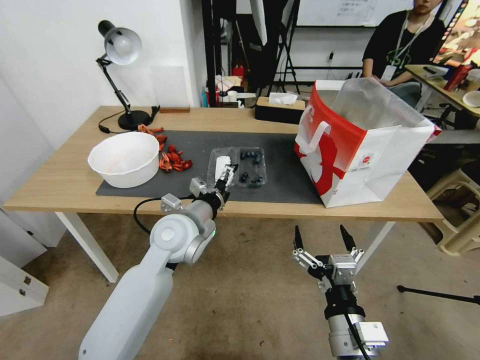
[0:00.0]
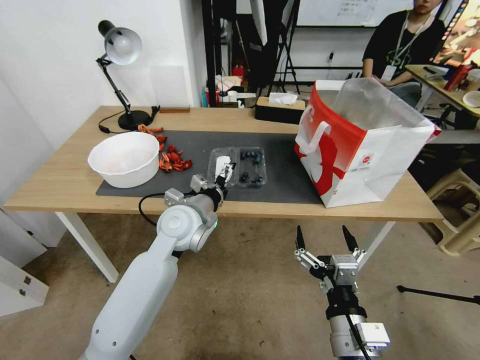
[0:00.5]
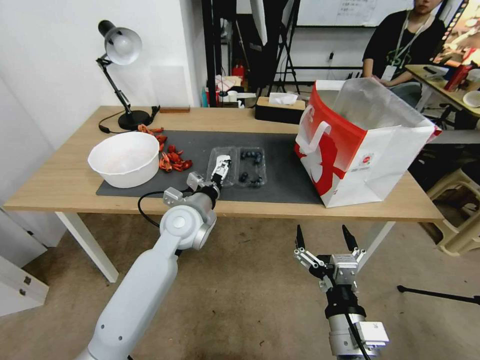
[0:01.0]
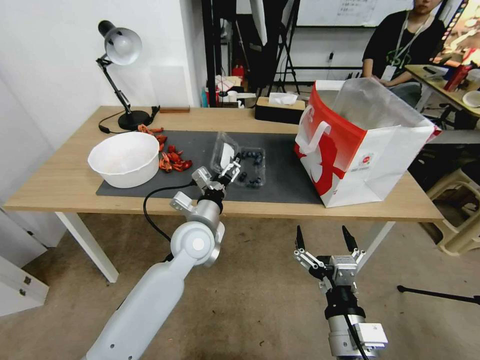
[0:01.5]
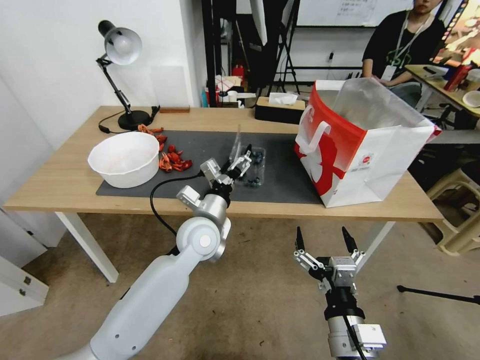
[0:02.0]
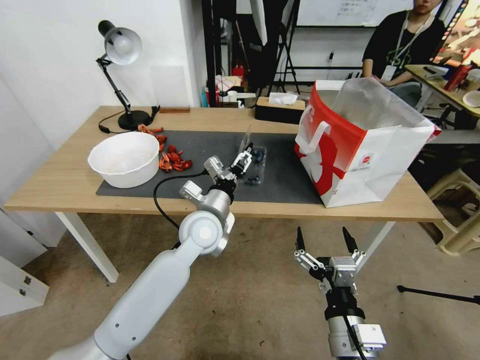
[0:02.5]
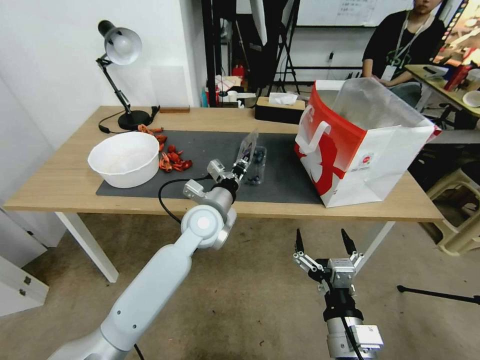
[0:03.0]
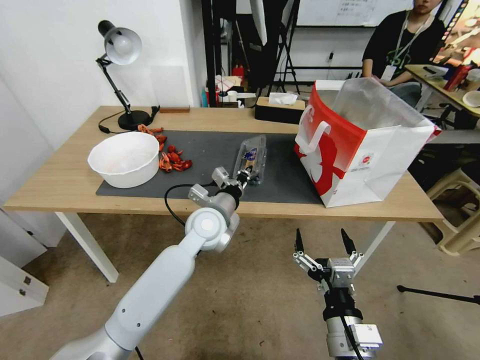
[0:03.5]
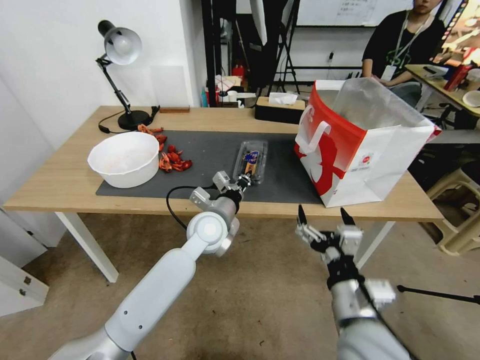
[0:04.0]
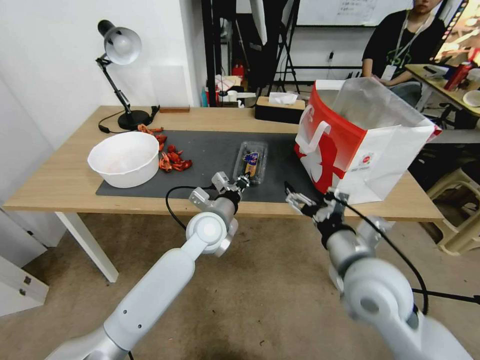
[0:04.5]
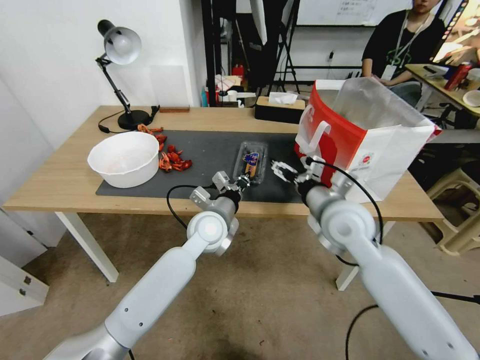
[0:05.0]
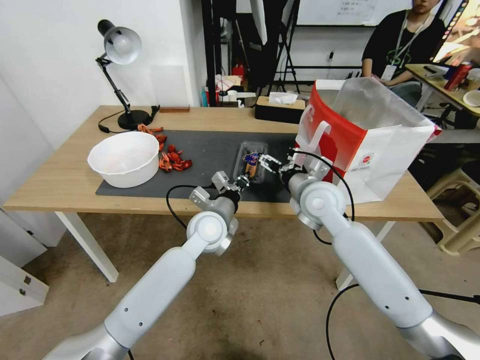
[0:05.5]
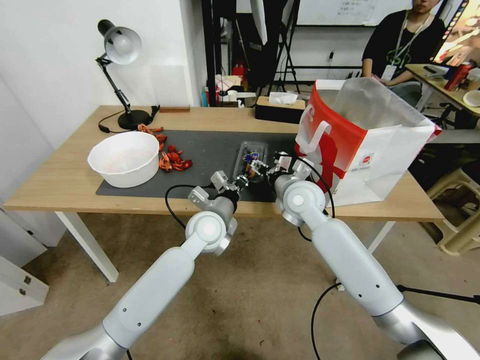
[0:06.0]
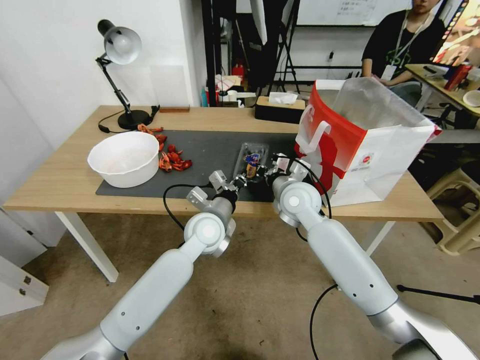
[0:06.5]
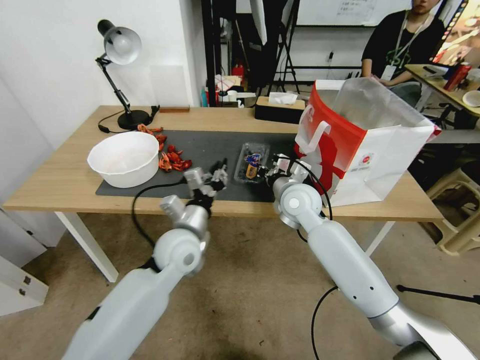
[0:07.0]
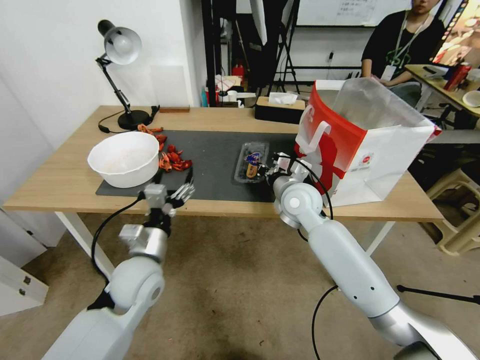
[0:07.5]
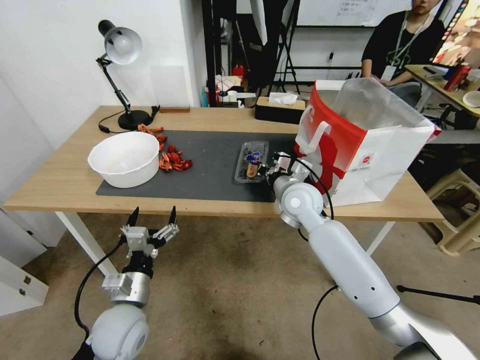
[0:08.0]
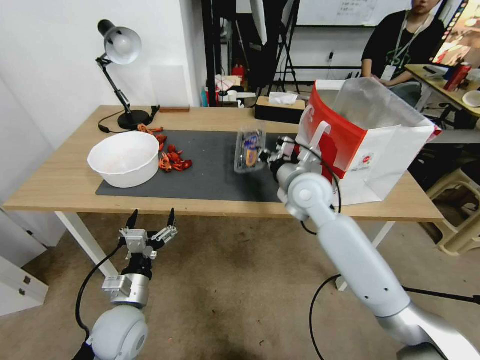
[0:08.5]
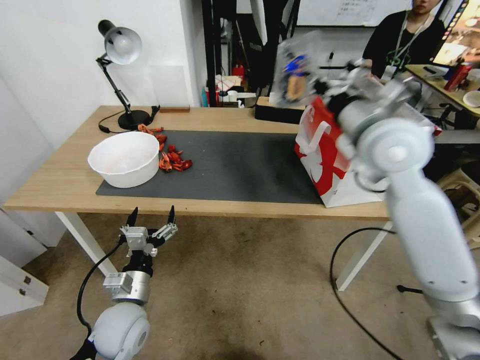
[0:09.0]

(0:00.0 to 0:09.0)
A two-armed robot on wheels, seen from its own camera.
Task of the whole recording: Close the takeout container lid, then place the container into the takeout bag.
0:00.0 - 0:02.0: The left gripper changes place by about 5 cm.
0:02.0 - 0:04.5: The right gripper heads forward and upward, covering about 15 cm. Meanwhile the left gripper closes its fingers.
0:04.5 - 0:07.0: The right gripper heads forward, covering about 20 cm, and closes up; the left gripper moves to the left and backward, roughly 10 cm.
0:07.0 - 0:09.0: The right gripper goes approximately 25 cm upward and to the right, while the left gripper goes about 15 cm backward, to the left and downward, and opens.

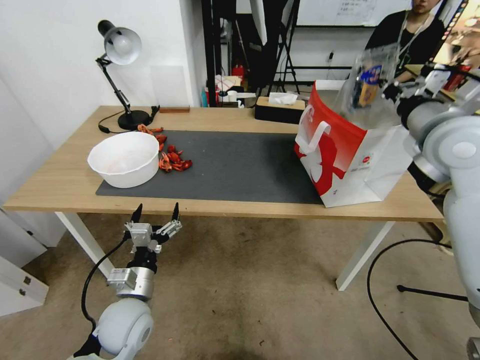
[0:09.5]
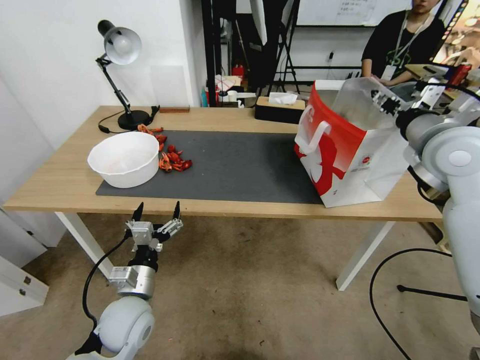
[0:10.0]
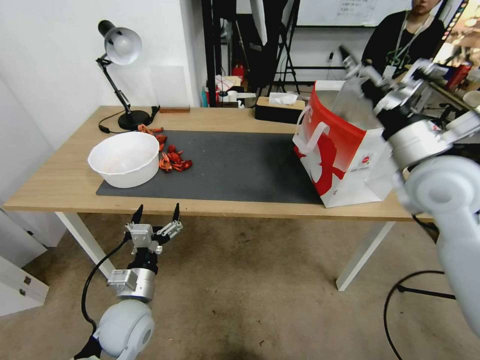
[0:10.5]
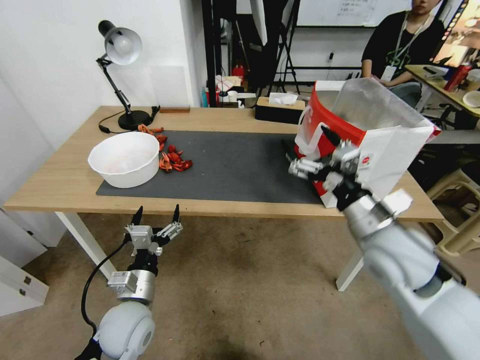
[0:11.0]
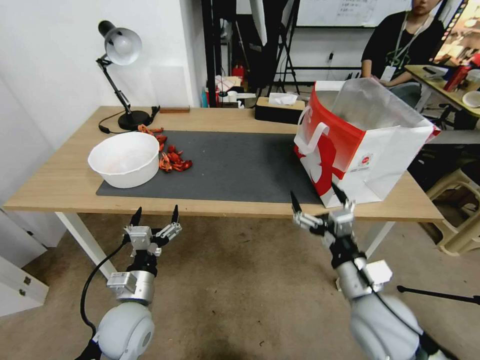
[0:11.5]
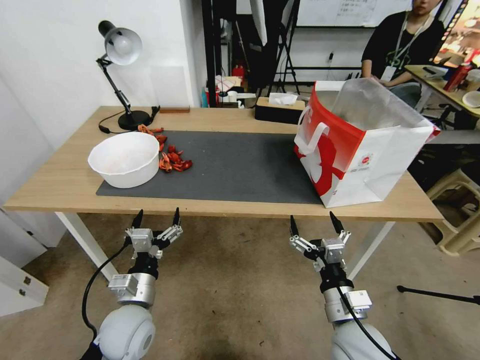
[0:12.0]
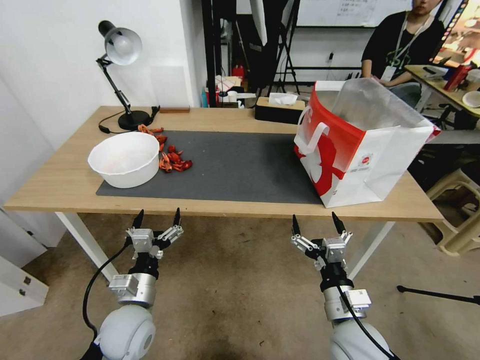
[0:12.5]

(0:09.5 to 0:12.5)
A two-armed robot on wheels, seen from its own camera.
Task of the whole recording: Close the takeout container lid, then place the container into the takeout bag.
0:09.5 - 0:11.0: The right gripper moves downward, backward and to the left, about 20 cm, and opens up.
0:11.0 - 0:12.5: The right gripper heads downward and backward, covering roughly 20 cm.
